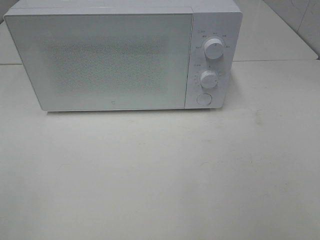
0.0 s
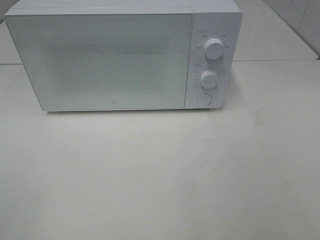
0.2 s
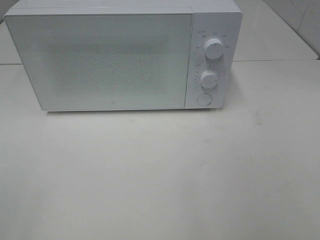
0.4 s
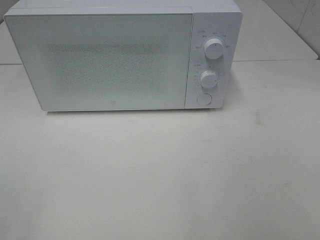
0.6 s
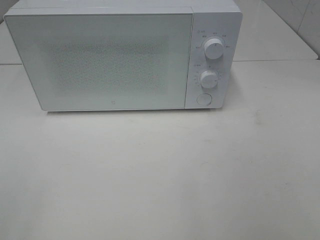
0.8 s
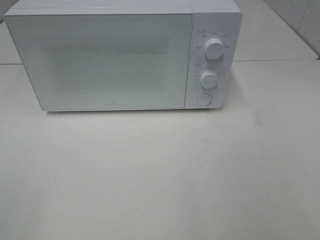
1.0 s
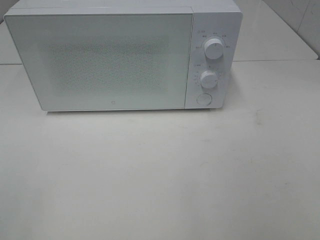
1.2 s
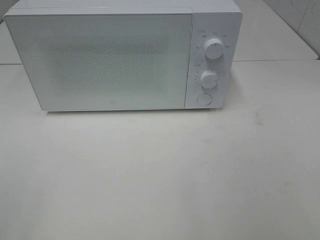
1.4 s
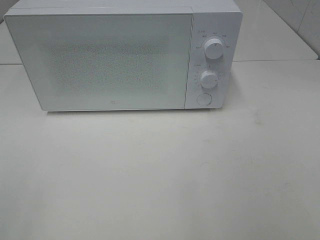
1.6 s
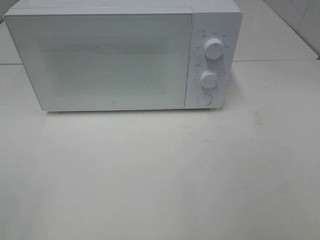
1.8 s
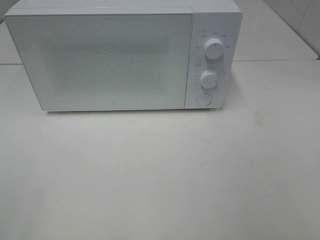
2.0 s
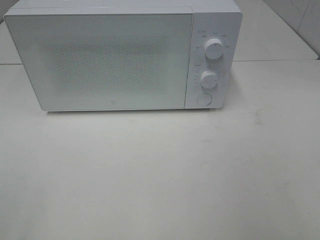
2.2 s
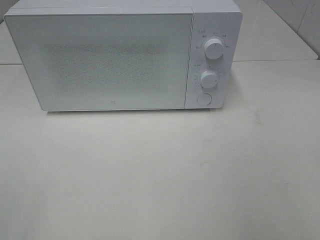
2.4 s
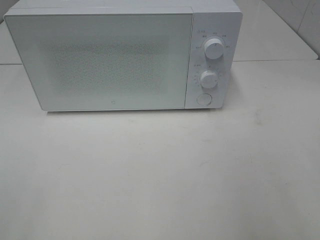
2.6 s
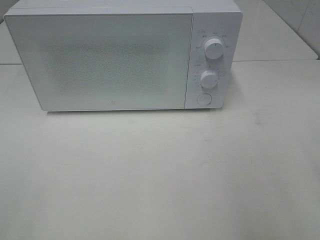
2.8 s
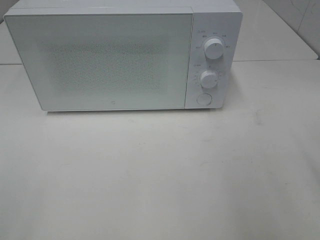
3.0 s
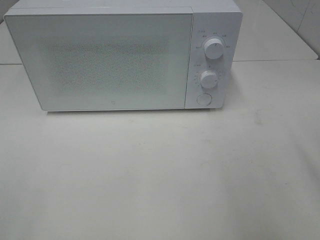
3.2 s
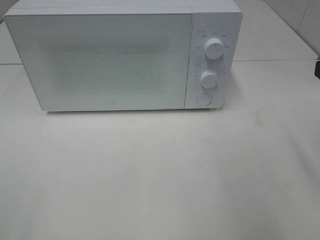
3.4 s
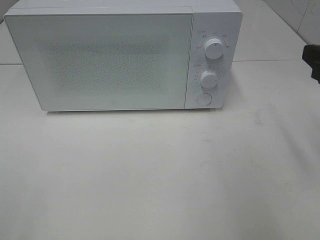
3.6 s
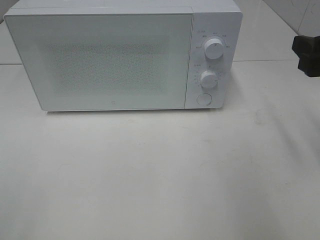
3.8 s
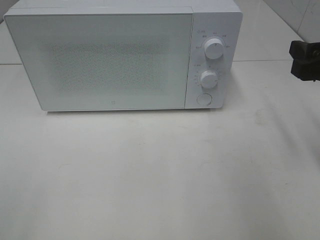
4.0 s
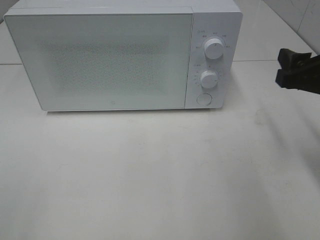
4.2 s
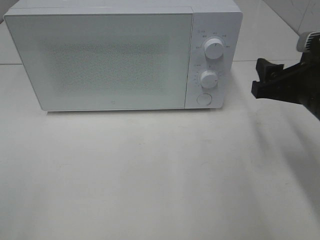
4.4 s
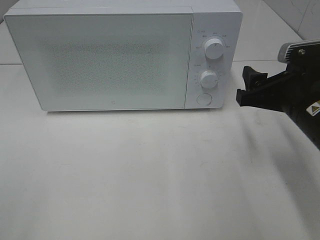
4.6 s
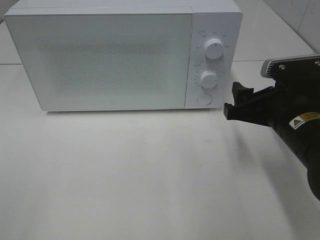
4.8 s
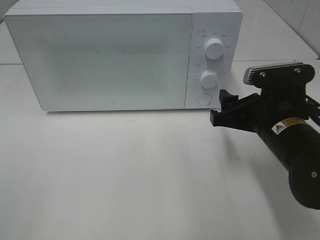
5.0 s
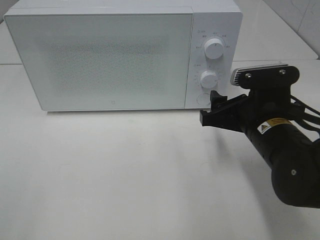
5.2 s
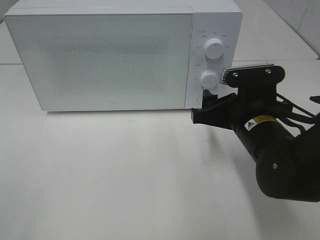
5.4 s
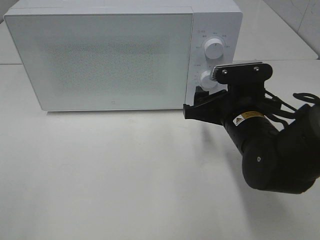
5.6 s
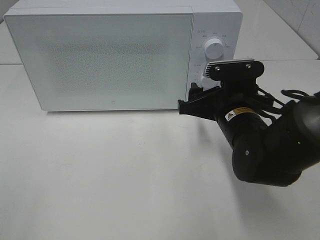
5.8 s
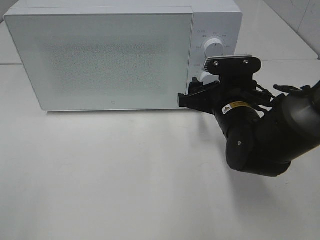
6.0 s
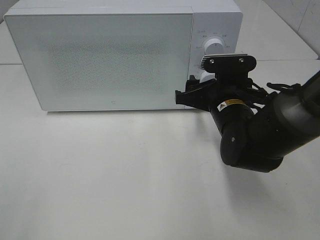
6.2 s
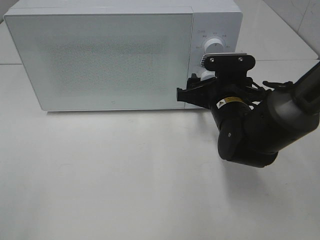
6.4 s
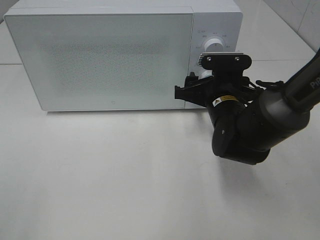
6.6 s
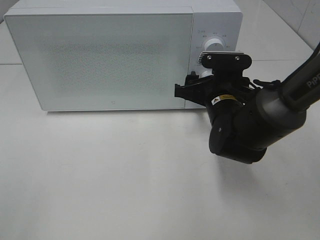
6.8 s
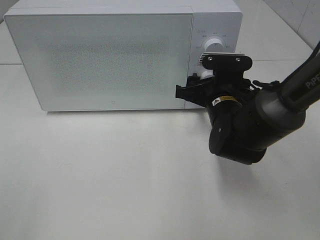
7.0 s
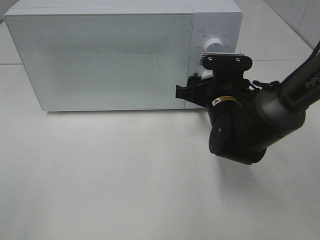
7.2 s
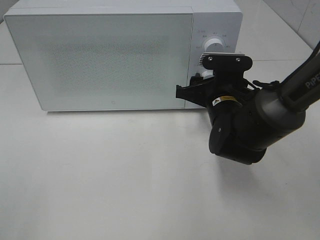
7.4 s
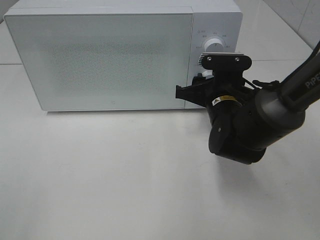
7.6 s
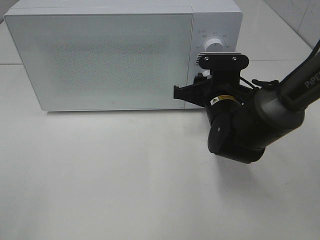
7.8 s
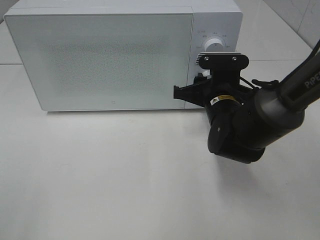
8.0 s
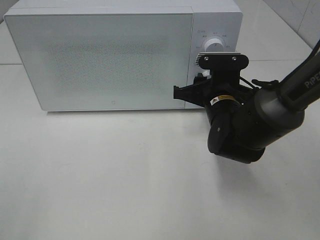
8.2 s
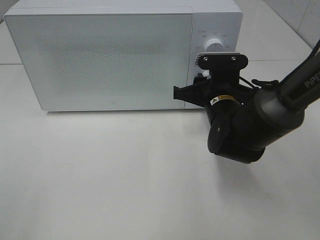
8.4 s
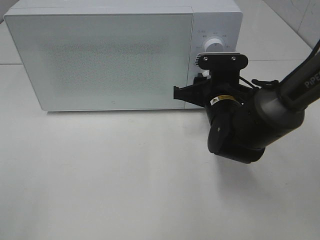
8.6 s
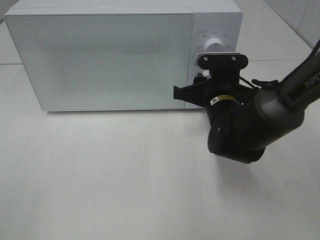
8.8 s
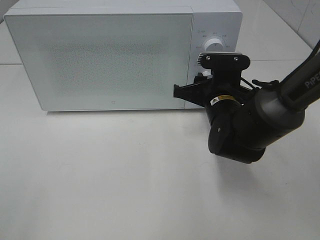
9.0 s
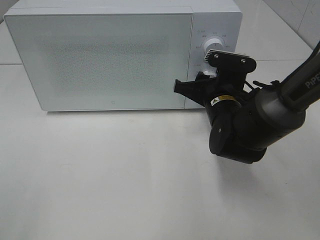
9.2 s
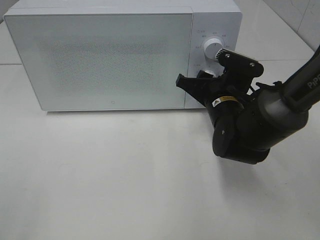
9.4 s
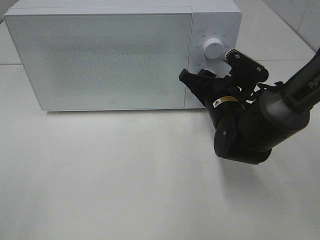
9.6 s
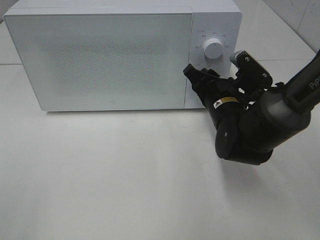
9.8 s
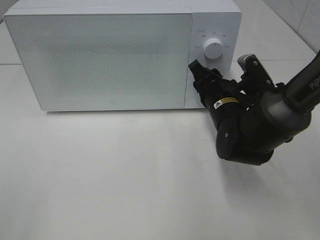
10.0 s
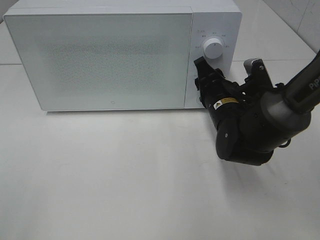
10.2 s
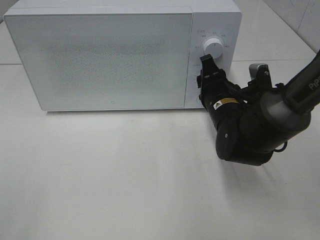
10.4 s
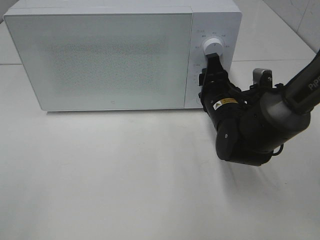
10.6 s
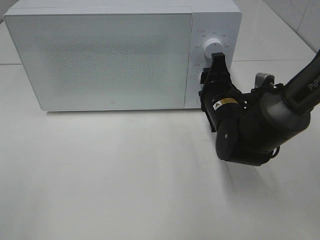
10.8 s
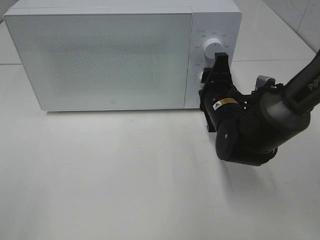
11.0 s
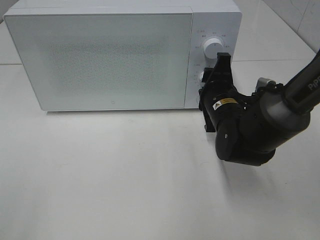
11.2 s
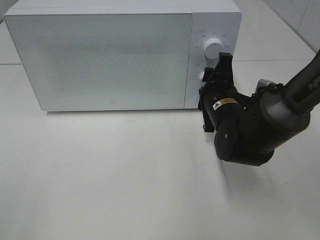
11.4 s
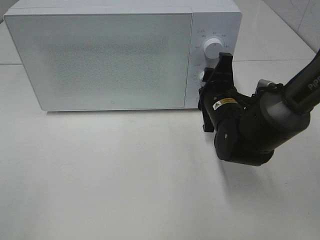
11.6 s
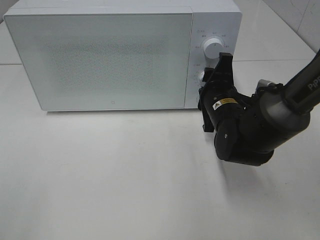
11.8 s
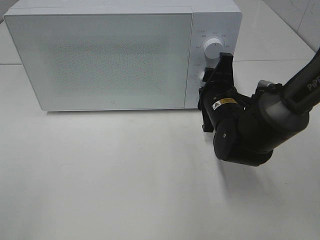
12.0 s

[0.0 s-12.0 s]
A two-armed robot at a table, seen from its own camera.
Task of the whole recording: Heat the burger.
0.0 to 1.6 s: Neither gripper changes place.
3.0 to 4.4 s: The right gripper goes about 15 cm forward and downward.
4.4 to 6.0 s: The right gripper travels to the left, downward and forward by some 15 cm.
6.0 to 7.6 s: The grippers move only a little.
7.6 to 9.0 s: Both grippers stay put.

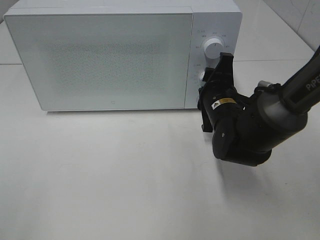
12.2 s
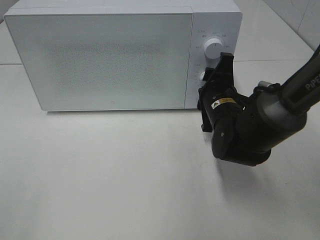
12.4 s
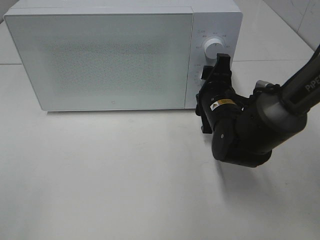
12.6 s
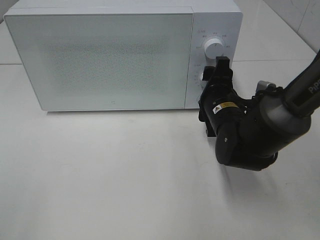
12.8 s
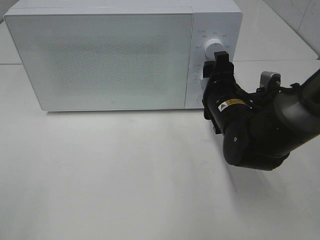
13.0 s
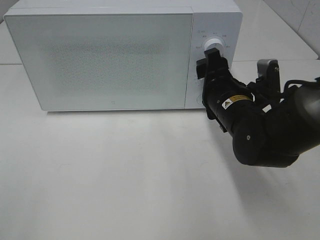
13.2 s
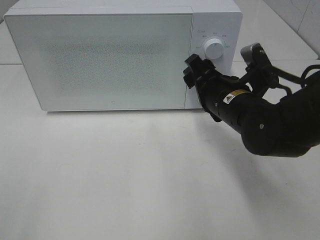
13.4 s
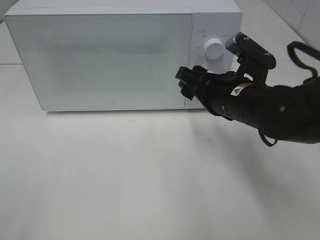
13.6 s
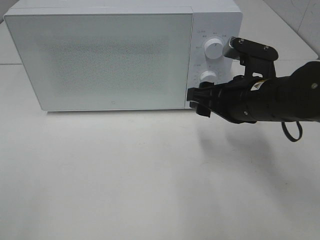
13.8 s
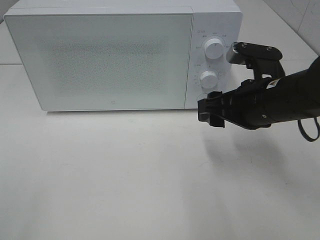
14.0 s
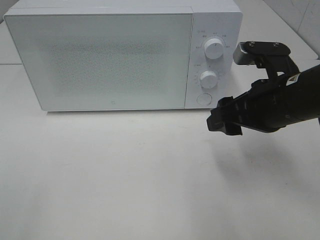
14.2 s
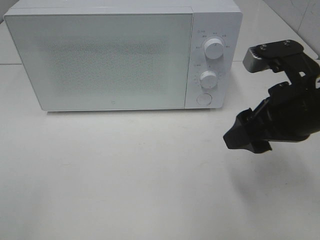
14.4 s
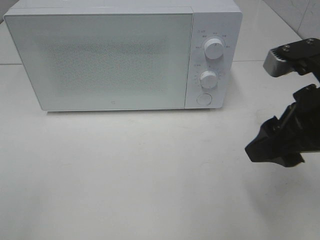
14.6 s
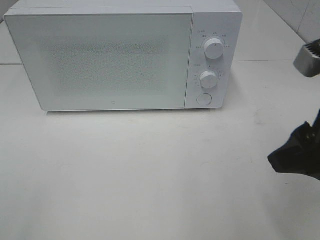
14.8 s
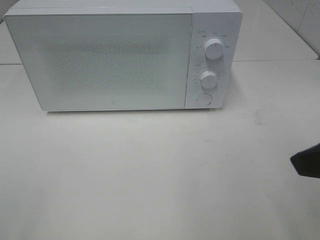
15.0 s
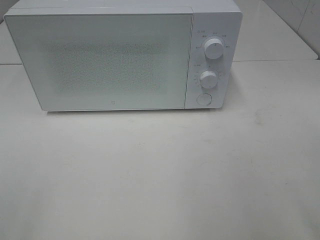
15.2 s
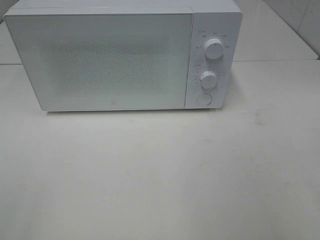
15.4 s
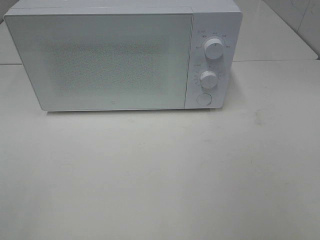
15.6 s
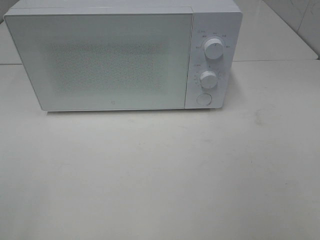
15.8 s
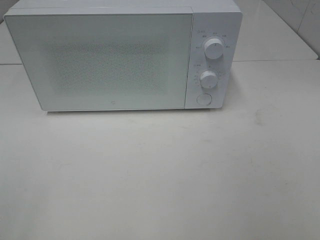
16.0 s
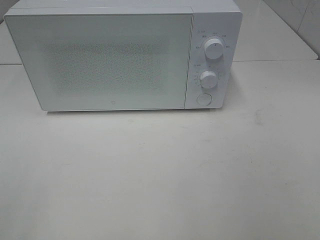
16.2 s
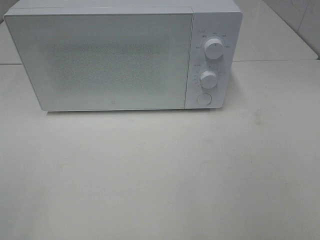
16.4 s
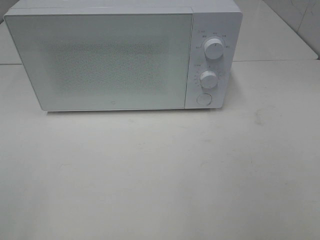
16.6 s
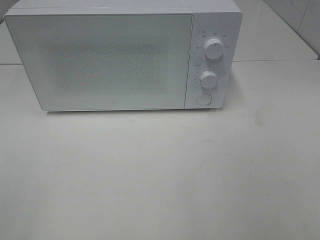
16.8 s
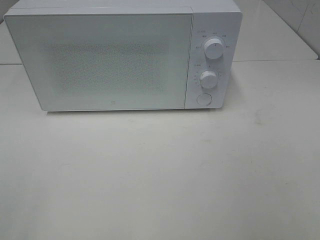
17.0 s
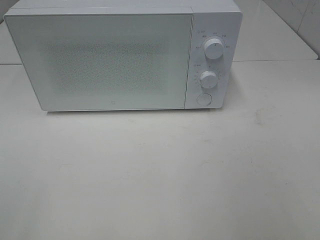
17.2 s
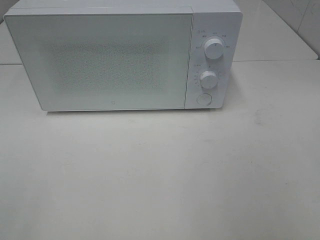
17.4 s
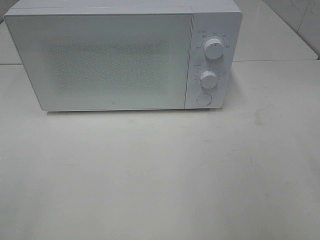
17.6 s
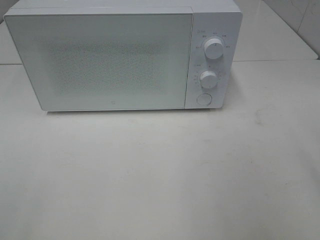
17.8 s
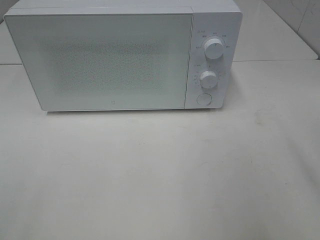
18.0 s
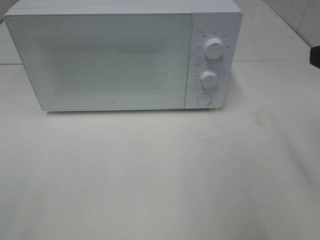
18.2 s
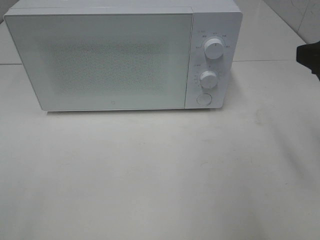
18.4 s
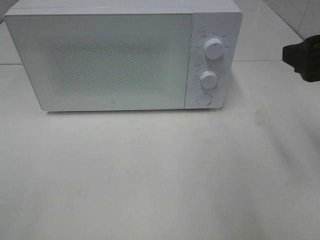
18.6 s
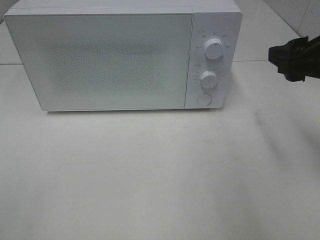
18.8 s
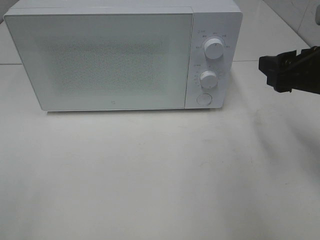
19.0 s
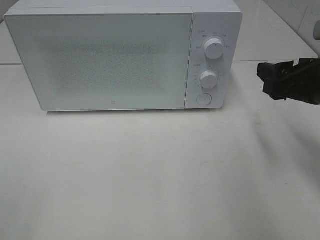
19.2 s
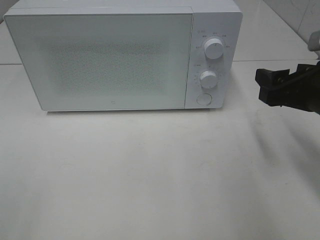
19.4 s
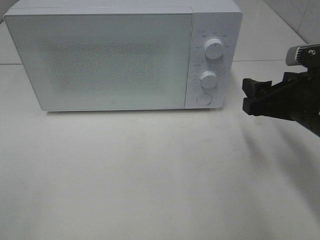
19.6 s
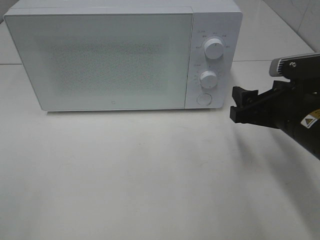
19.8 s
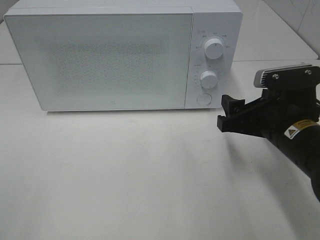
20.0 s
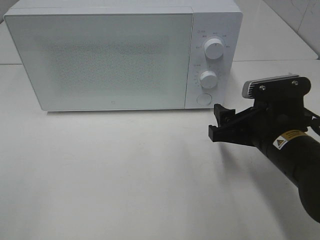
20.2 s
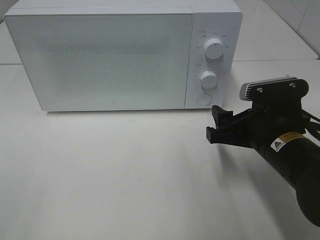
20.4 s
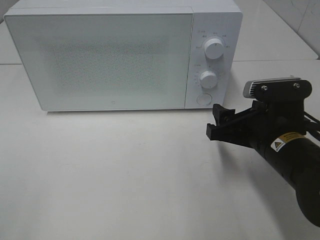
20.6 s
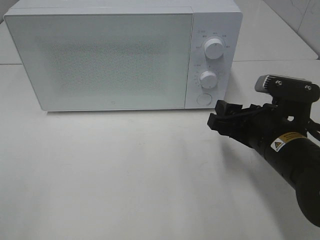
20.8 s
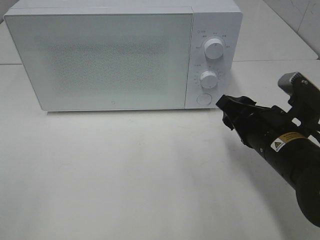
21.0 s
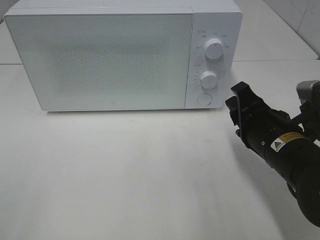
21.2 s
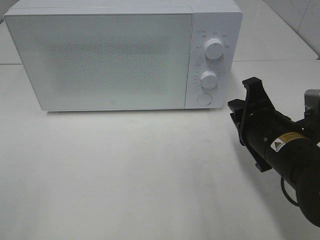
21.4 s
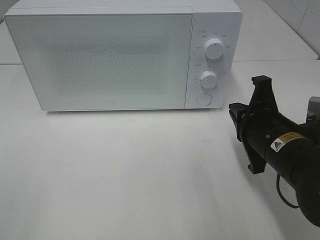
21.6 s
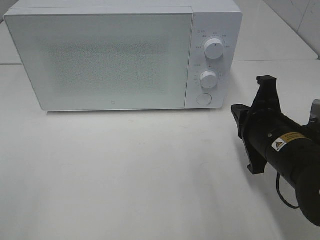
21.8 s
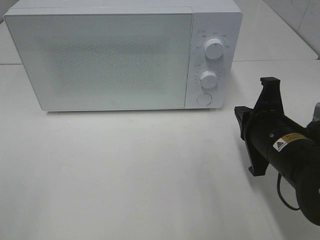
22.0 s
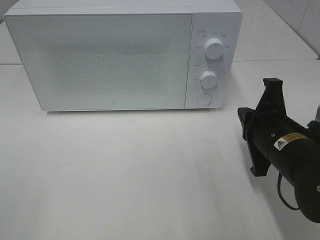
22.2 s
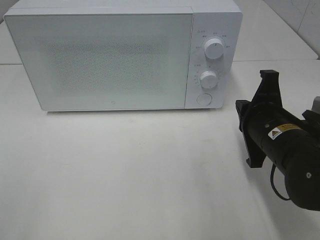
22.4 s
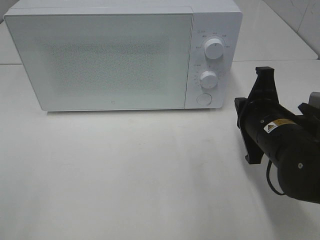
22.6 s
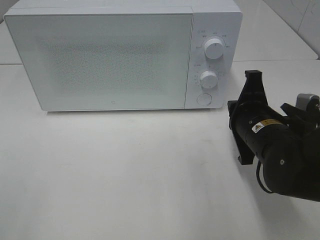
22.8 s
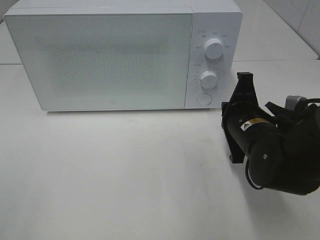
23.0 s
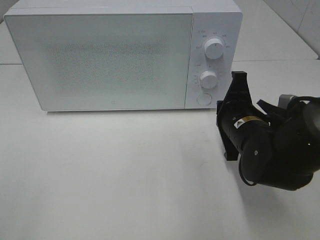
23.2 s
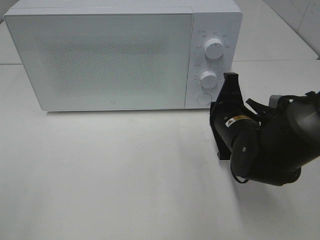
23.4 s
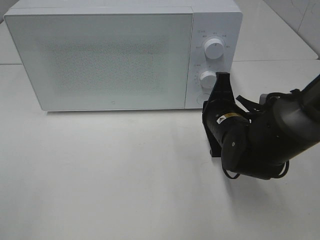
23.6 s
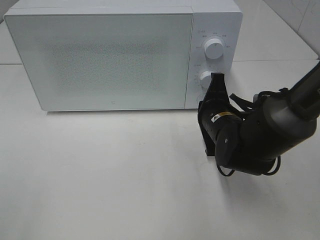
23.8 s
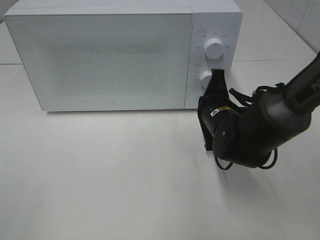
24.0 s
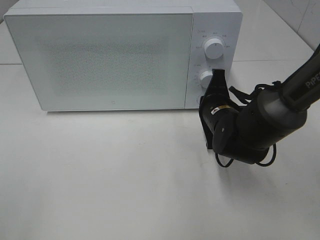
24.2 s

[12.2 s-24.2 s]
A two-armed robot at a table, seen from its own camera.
Task of the whole recording: Heat the burger.
12.2 to 13.8 s: The right gripper shifts approximately 10 cm upward and backward.
13.8 to 15.2 s: The right gripper is displaced backward, upward and to the right by roughly 25 cm.
18.2 to 19.8 s: The right gripper shifts some 15 cm downward and forward.
19.8 to 21.2 s: The right gripper closes up.
21.2 to 22.6 s: The right gripper closes its fingers.
22.6 to 24.2 s: The right gripper shifts some 10 cm forward.
